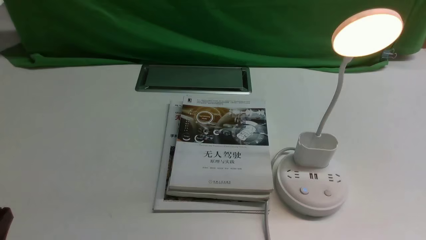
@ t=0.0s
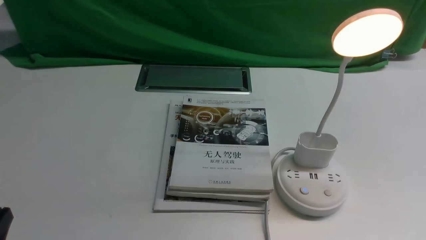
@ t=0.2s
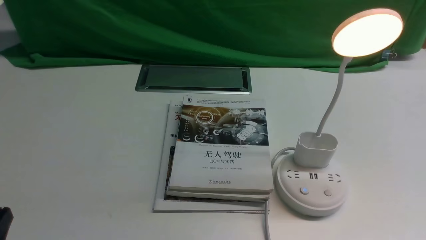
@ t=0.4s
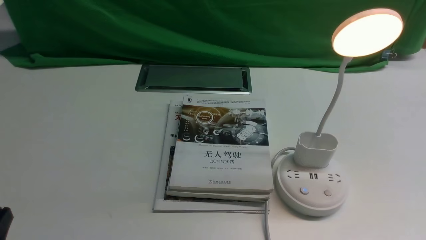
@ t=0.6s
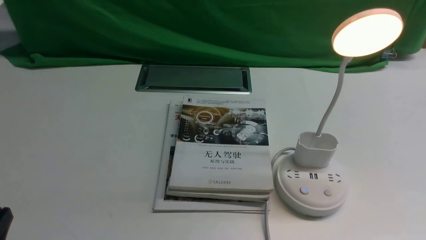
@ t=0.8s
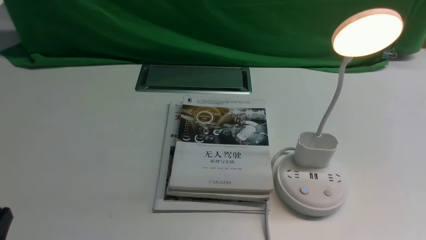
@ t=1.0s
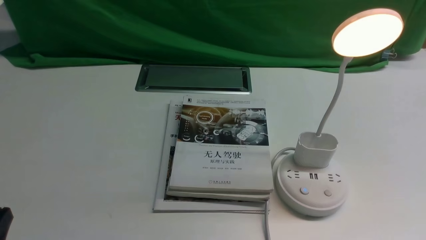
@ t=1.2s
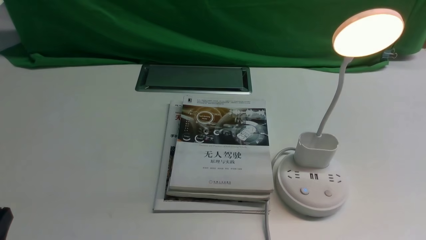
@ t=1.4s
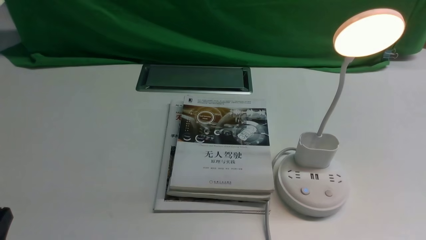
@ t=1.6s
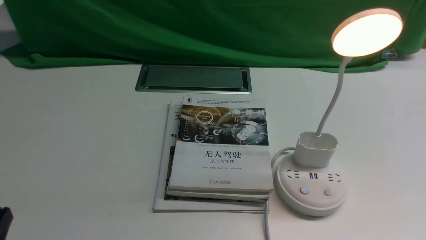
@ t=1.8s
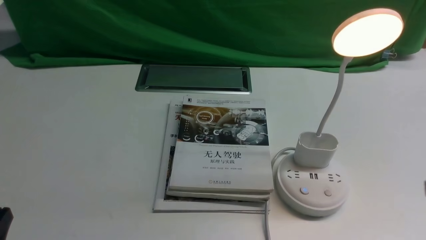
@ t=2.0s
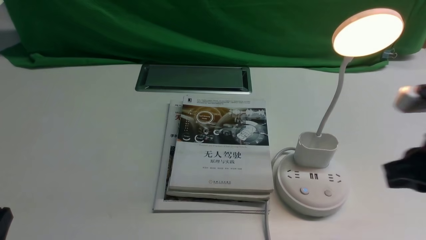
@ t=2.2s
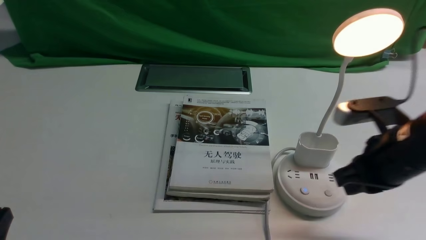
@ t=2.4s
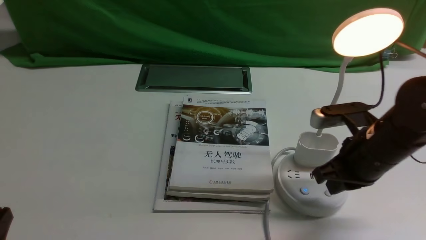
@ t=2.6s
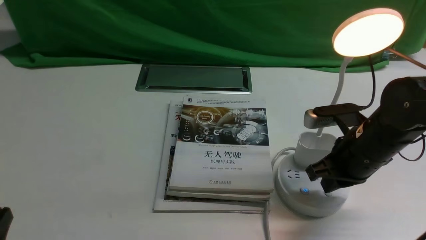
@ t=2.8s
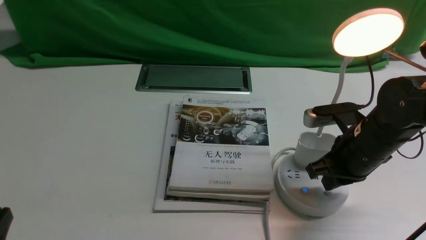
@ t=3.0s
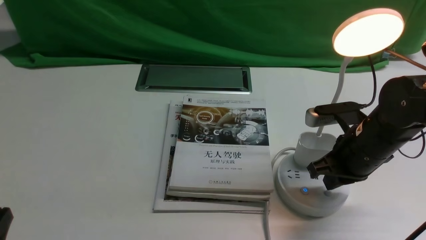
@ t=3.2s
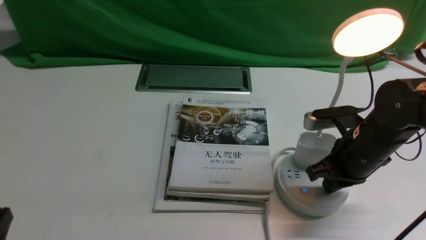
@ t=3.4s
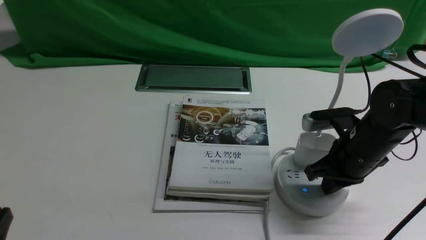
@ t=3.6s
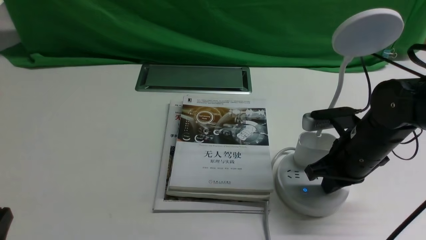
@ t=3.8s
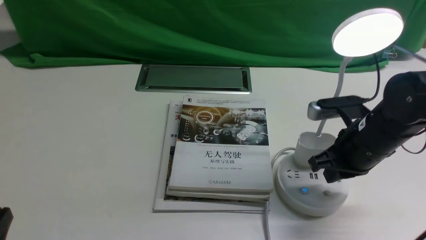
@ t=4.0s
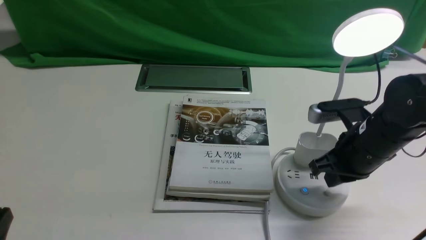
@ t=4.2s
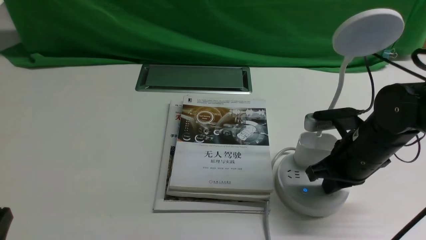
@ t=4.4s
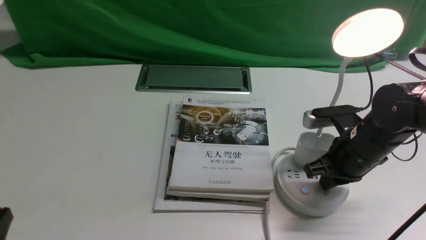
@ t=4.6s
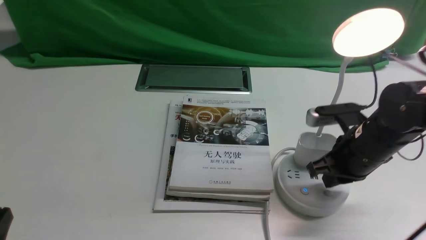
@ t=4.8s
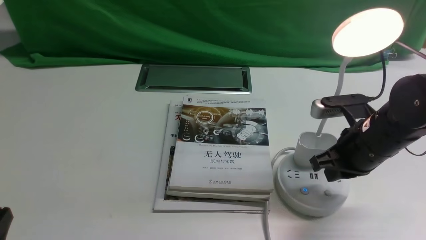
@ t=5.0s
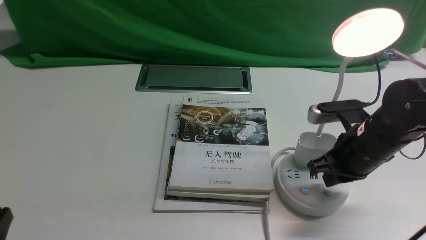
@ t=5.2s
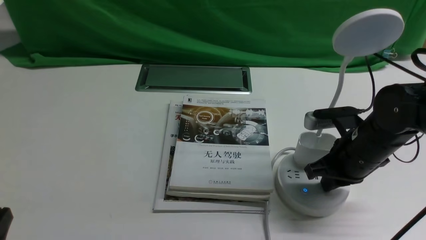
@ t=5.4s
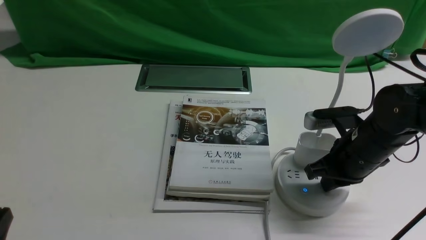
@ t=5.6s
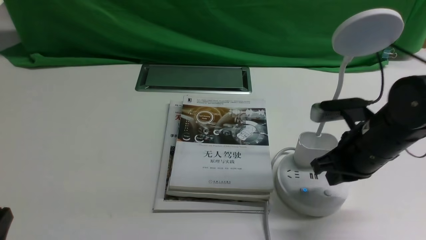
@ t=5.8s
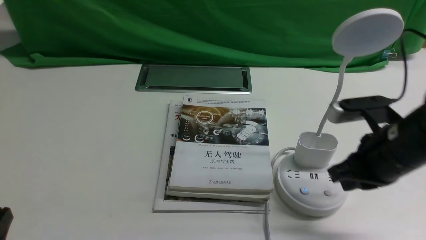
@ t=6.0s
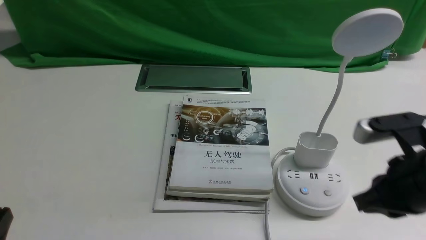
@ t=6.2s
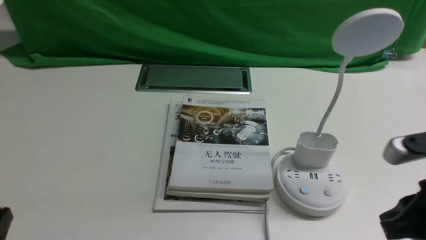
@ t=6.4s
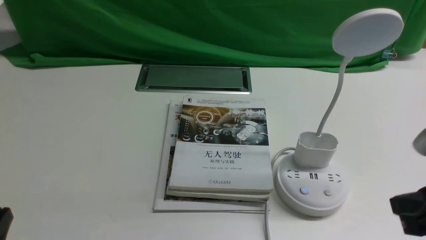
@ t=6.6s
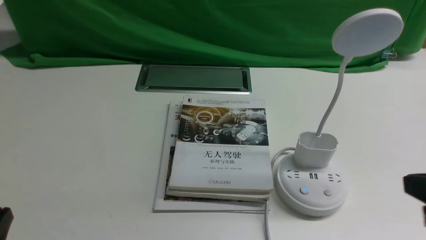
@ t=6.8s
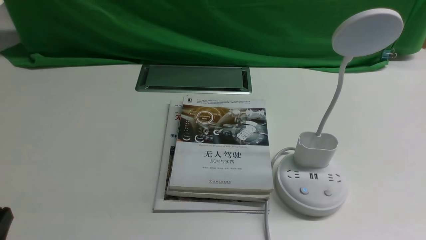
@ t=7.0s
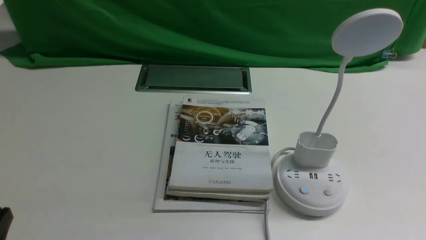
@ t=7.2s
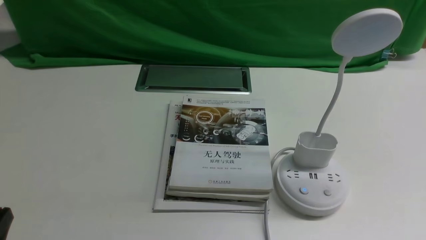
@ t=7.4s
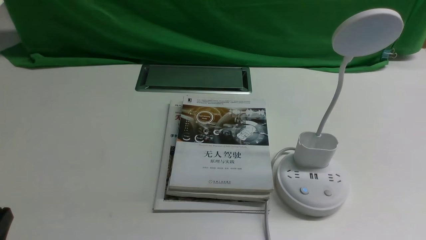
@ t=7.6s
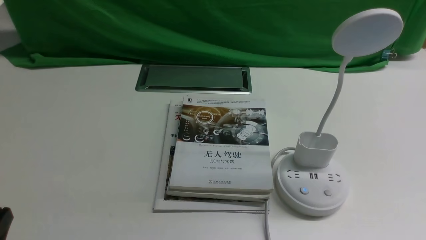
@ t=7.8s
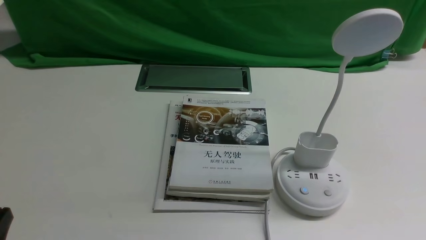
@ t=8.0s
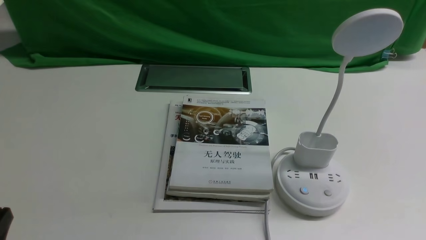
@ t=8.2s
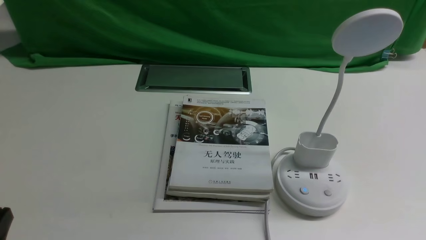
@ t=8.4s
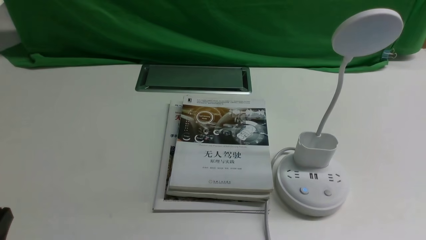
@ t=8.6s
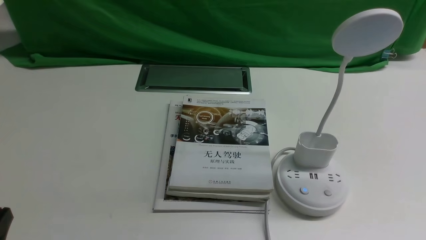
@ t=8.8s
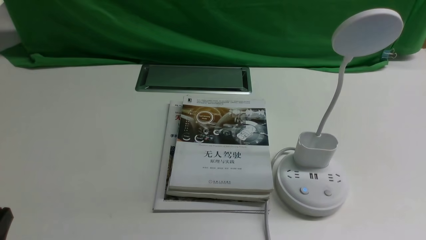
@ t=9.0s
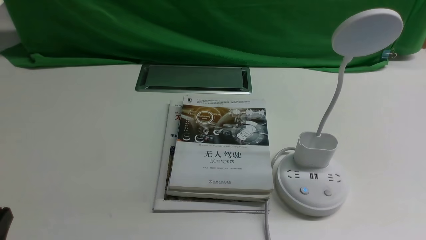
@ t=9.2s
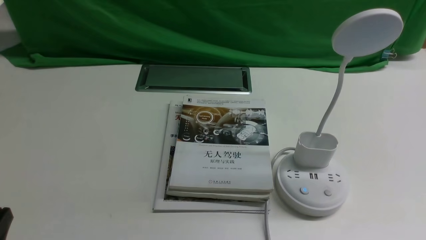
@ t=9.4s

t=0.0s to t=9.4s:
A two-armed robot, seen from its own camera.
Task of the whole recording: turn off the desk lamp on the white desktop by hand.
Step, t=0.0s to t=5.6s: use the right arm to press the button switch on the lamp holder.
t=1.6s to t=3.2s: The right gripper heads forward and to the left, covering roughly 25 cm, and closes.
t=3.2s to t=4.8s: The right gripper closes its fingers.
t=4.8s to t=6.2s: The right gripper moves backward and upward, about 10 cm.
t=6.2s to t=7.8s: The right gripper is displaced backward and to the right by approximately 20 cm.
